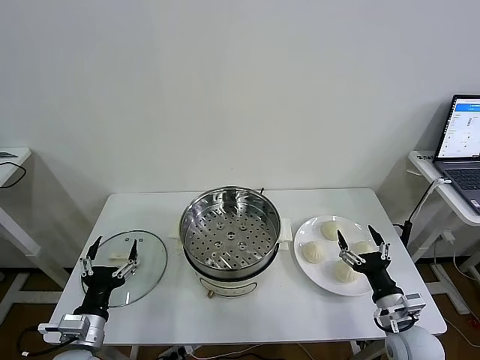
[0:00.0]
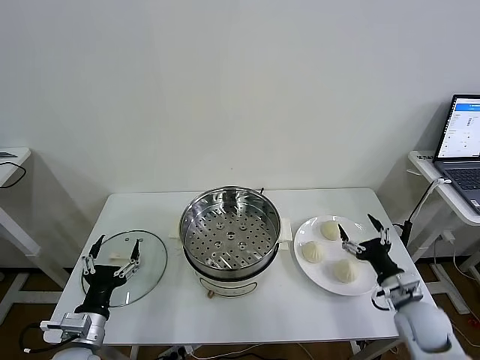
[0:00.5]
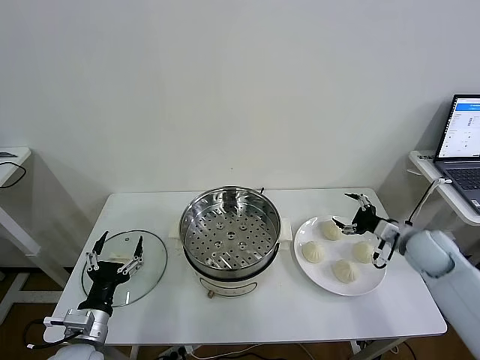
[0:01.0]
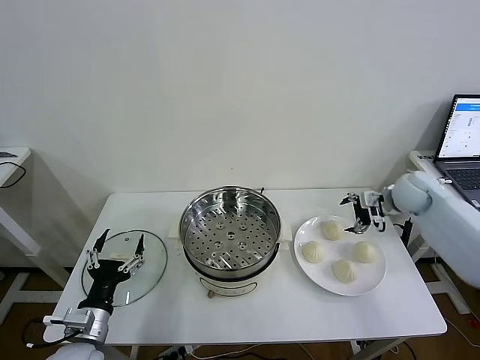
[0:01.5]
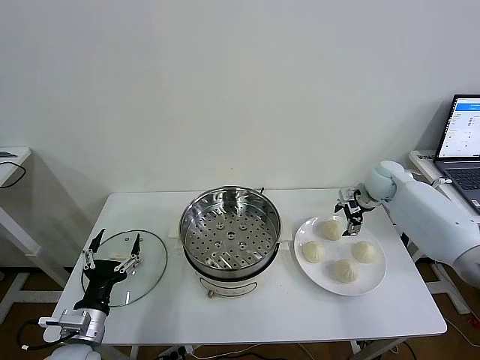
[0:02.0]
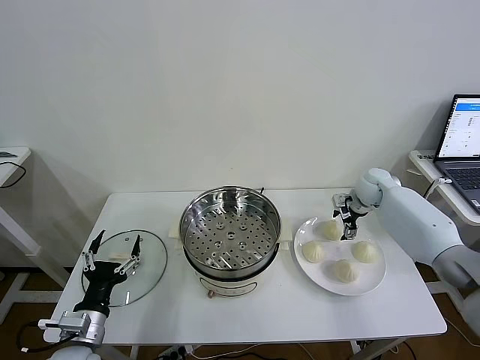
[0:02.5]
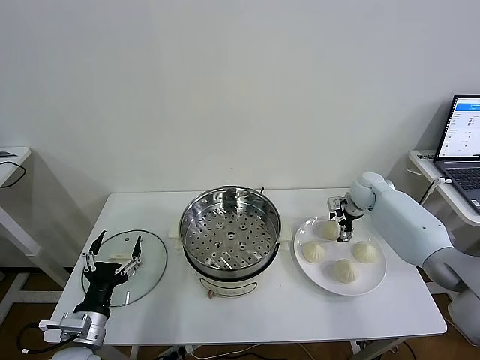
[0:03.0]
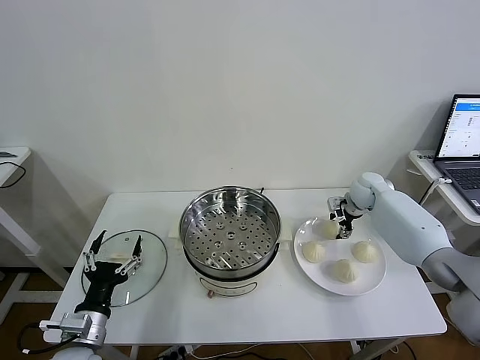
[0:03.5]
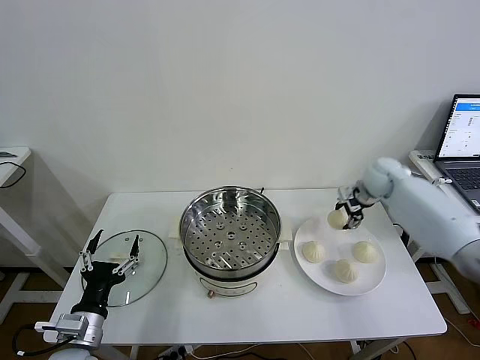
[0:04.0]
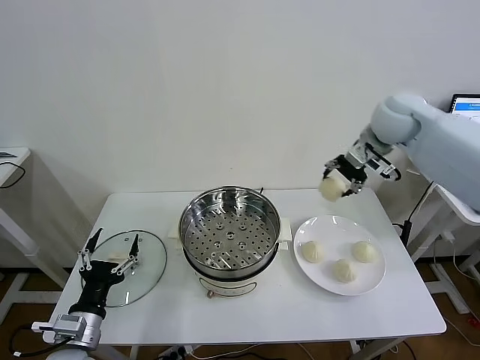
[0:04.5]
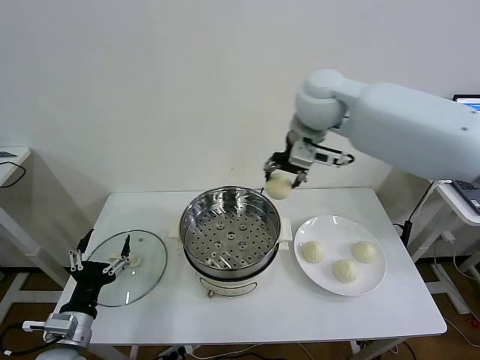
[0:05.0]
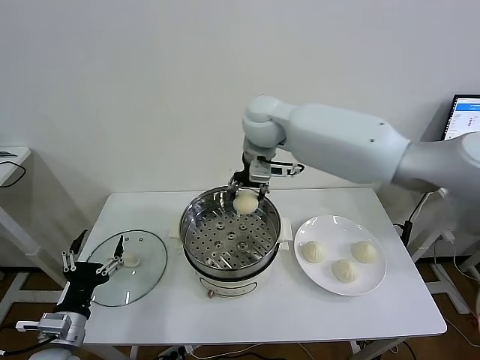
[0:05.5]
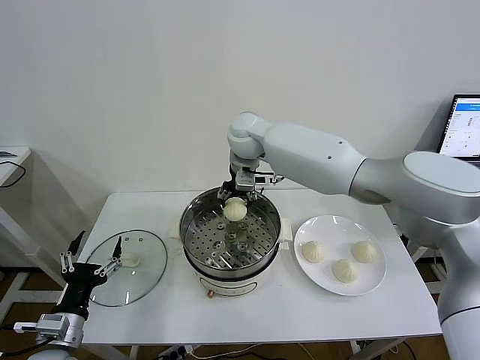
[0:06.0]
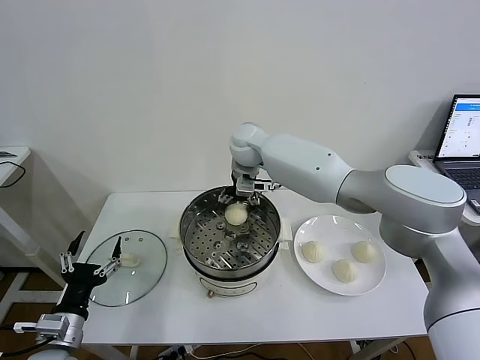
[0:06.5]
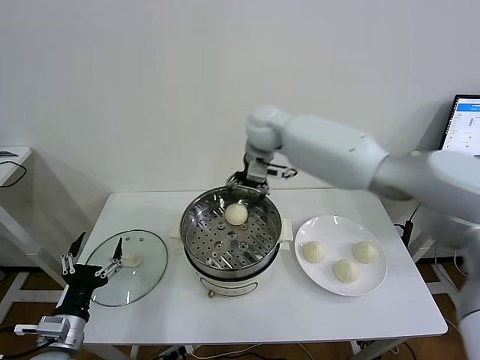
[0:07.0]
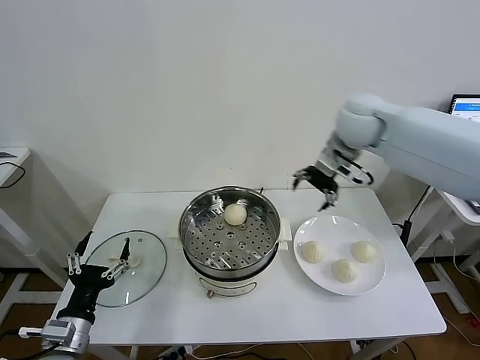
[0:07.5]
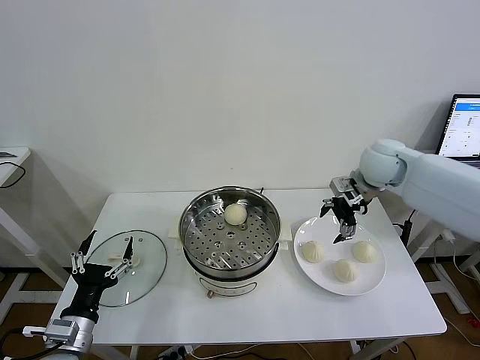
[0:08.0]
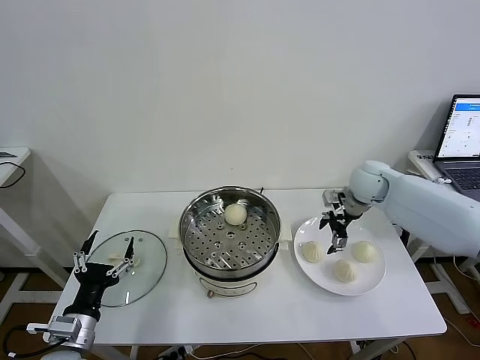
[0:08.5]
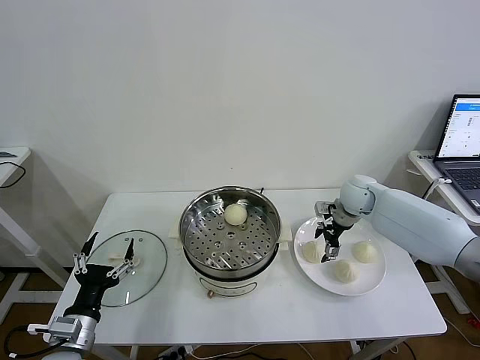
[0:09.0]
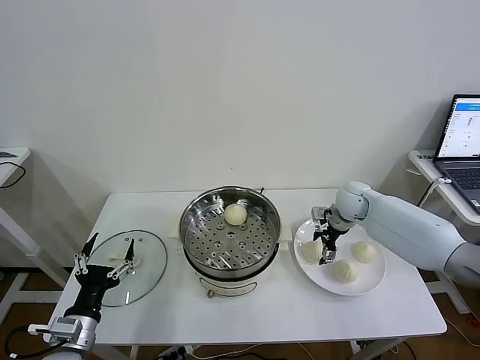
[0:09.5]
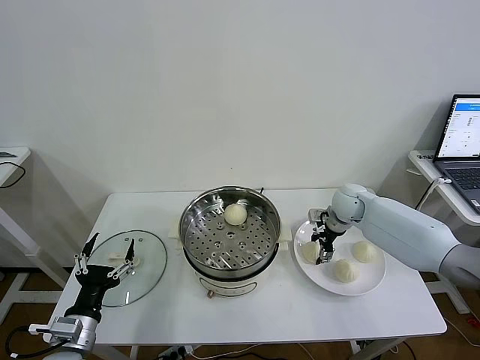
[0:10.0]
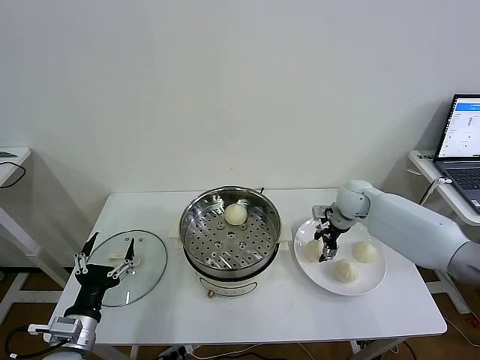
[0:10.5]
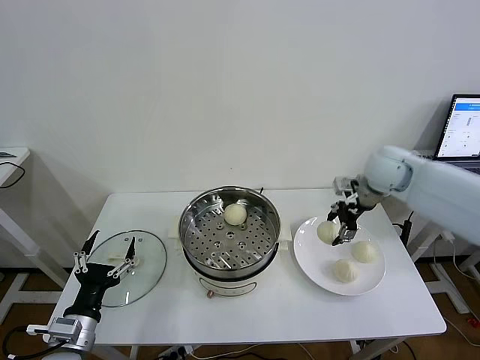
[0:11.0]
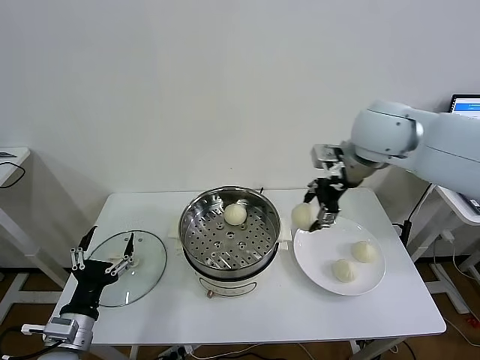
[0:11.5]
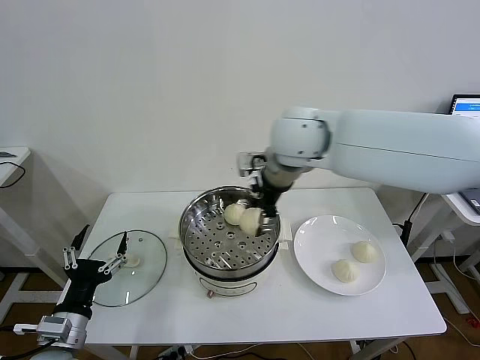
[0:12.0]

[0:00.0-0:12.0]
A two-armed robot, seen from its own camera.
Task of the whole recording: take steamed baozi put them in steamer then cover it.
Step, 0.0 to 3.0 s: Grasp the baozi in the plate with right gripper.
Step, 4.0 to 6.5 s: Place the baozi on the steamer with right gripper.
Step, 7.0 to 10.0 s: Grasp the baozi in the plate with right gripper.
2.0 to 4.0 s: The right gripper heads upward, covering some 10 cm, and closes its fingers.
4.0 to 6.0 s: The right gripper heads to the left, covering approximately 35 cm.
6.0 to 8.0 s: The right gripper goes about 30 cm to the right, and opens its fingers.
8.0 to 10.0 s: The right gripper moves downward, about 15 cm, and closes up.
10.0 to 12.0 s: The right gripper moves upward and to the left, about 35 cm.

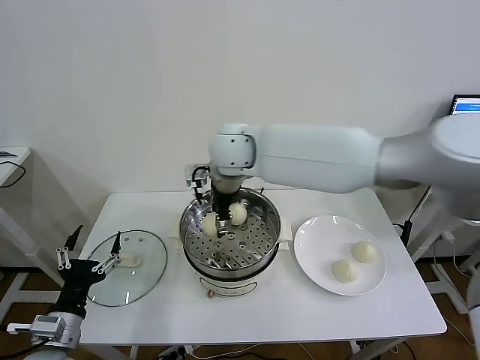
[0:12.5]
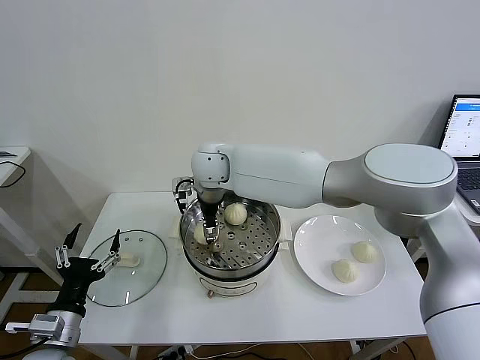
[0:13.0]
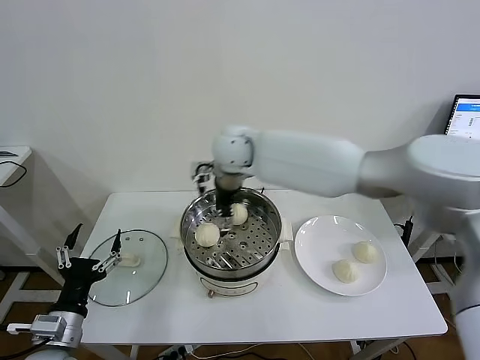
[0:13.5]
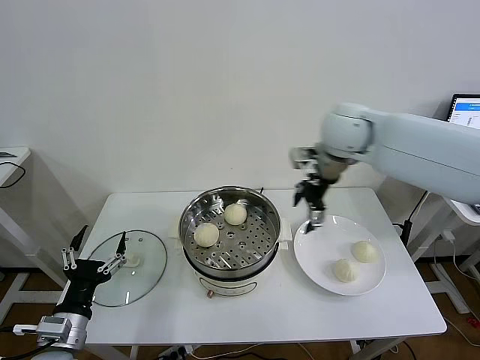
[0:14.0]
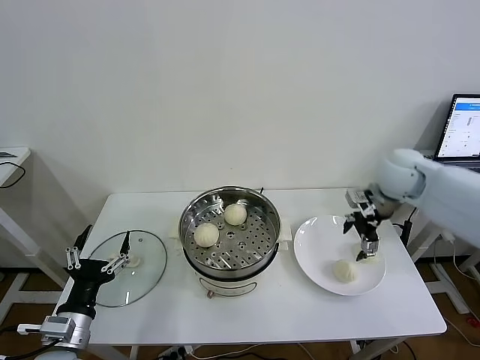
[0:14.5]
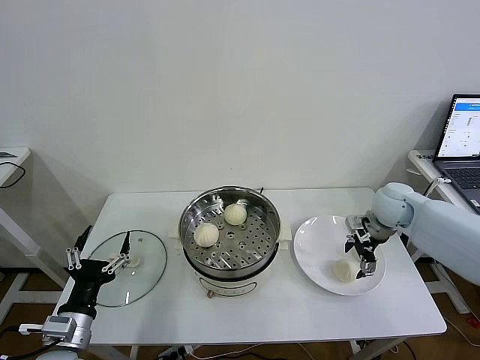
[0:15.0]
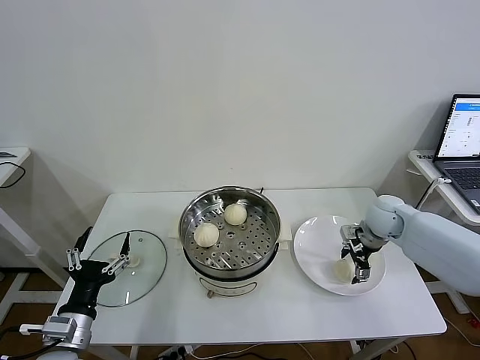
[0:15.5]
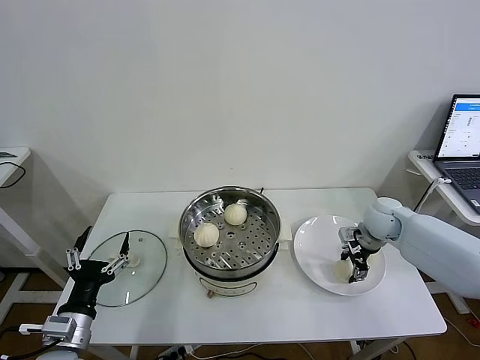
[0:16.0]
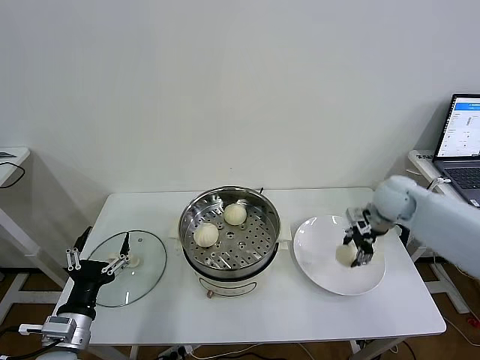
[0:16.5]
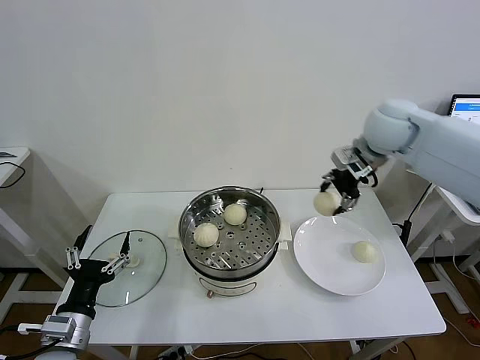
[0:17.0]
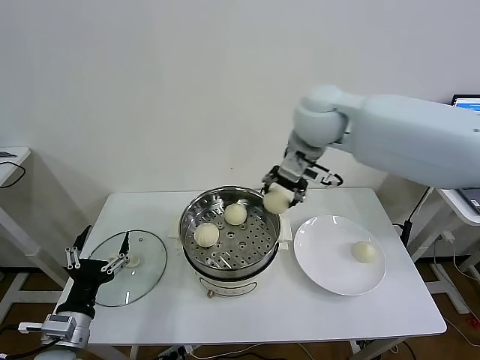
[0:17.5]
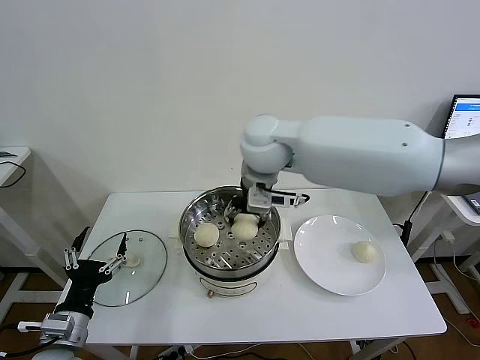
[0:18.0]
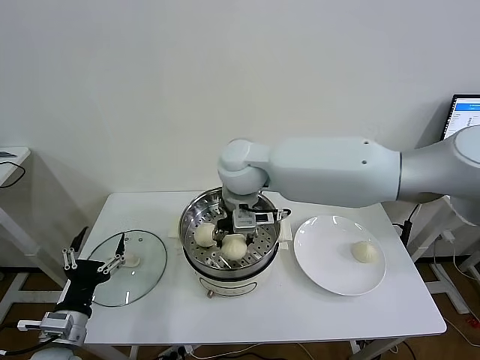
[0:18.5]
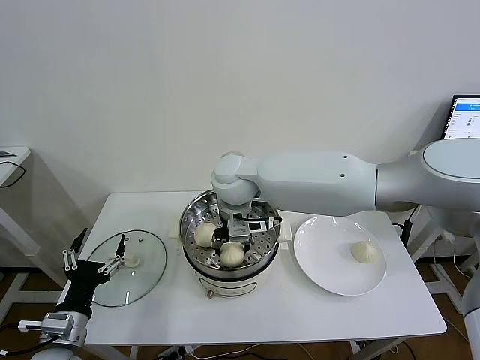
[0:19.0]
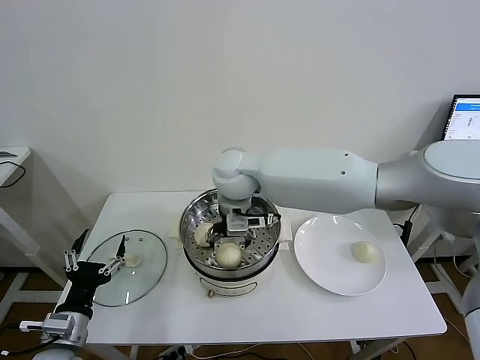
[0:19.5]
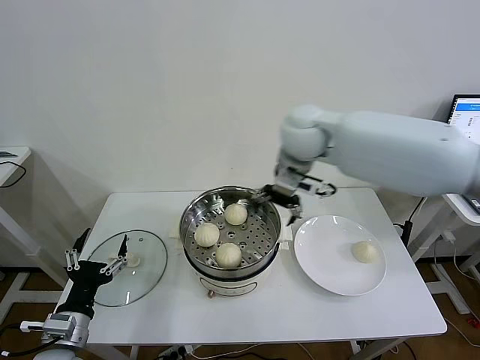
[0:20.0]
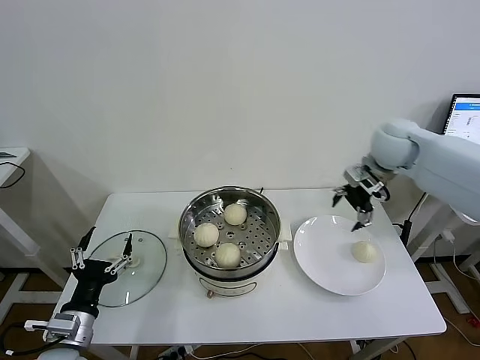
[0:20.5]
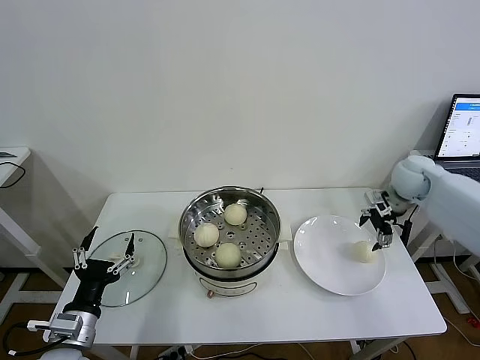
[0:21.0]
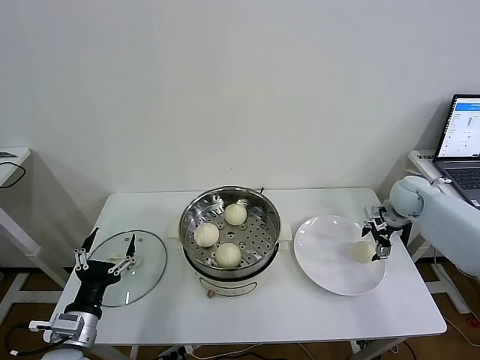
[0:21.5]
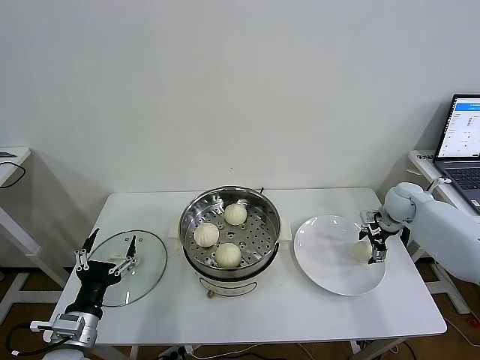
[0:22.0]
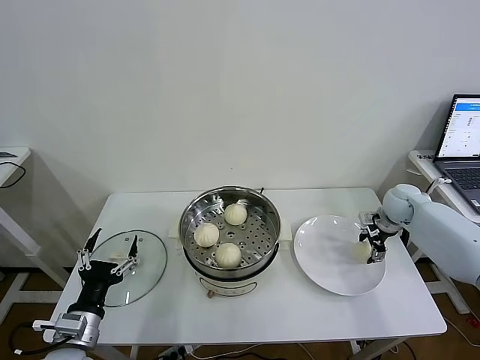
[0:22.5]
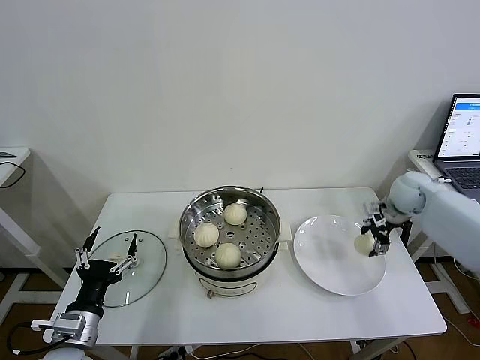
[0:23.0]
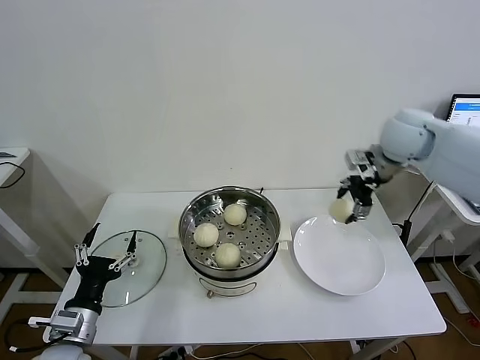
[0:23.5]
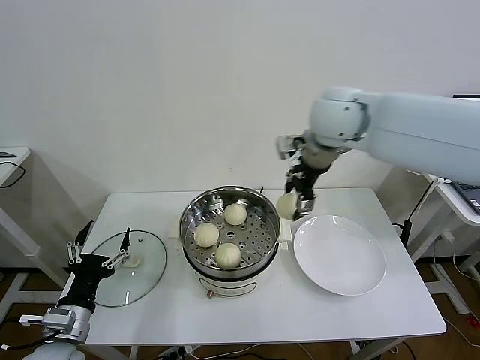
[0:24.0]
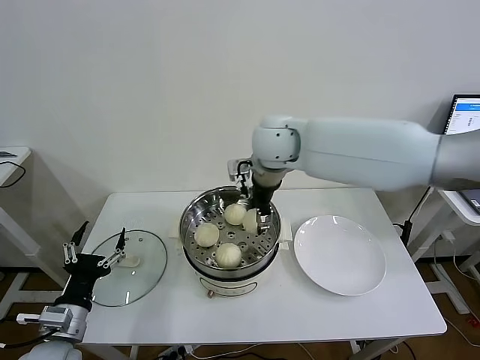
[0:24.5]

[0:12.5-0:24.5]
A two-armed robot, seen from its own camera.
Task of the whole recording: take steamed baozi put them in steamer then cover it.
Step, 13.5 to 16.0 s: Grasp the baozi in the plate with right gripper.
Step, 16.5 to 19.5 s: Place the baozi on the steamer with right gripper.
Step, 20.0 to 22.5 s: Grasp the baozi in the plate with right gripper.
12.5 to 14.5 s: The right gripper heads to the right, covering approximately 40 cm, and opens its fingers.
14.5 to 16.5 s: The right gripper moves about 10 cm downward and comes back, and closes its fingers.
16.5 to 18.5 s: The right gripper goes some 35 cm to the left.
18.5 to 20.5 s: The right gripper goes some 35 cm to the right, and opens.
20.5 to 22.5 s: The right gripper is displaced downward and to the right by some 20 cm, and closes.
22.5 to 24.5 s: The right gripper moves to the left and upward, approximately 40 cm.

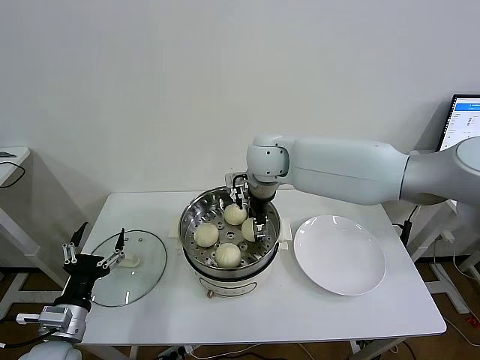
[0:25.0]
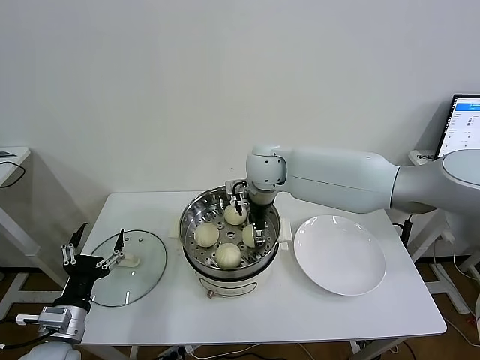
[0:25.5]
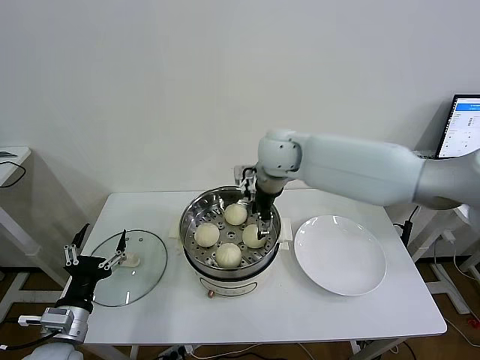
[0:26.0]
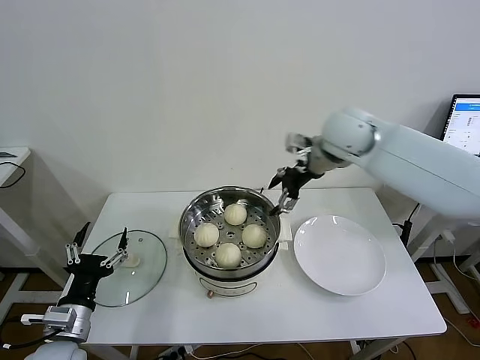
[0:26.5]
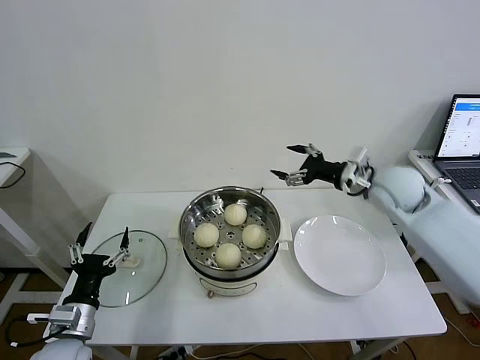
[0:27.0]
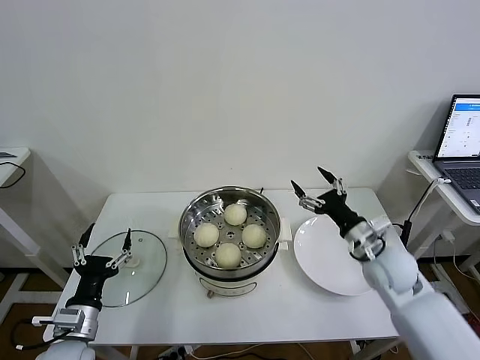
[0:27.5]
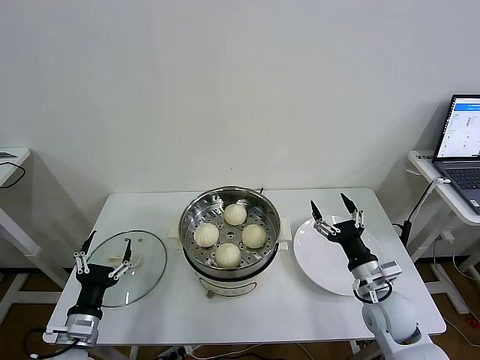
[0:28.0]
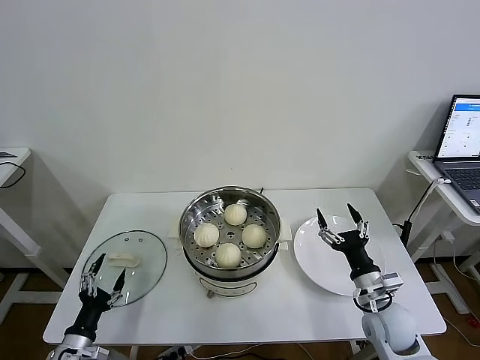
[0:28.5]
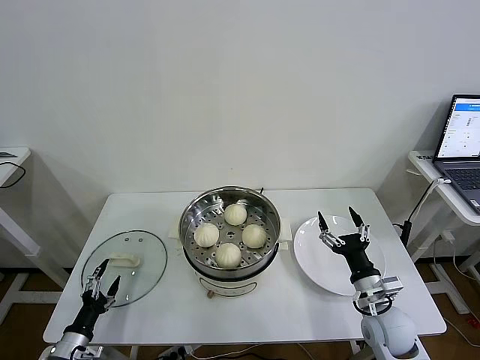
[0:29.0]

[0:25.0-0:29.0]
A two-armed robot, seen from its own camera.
Task of the whole recording: take steamed baozi put them in steamer then cover it.
25.0 to 27.0 s: The right gripper is displaced to the right by some 25 cm, and opens its fingers.
27.0 to 29.0 s: The left gripper shifts some 15 cm downward and to the left. Meanwhile the right gripper heads downward and backward, covering some 30 cm.
